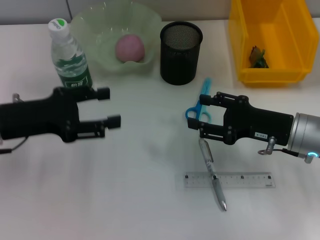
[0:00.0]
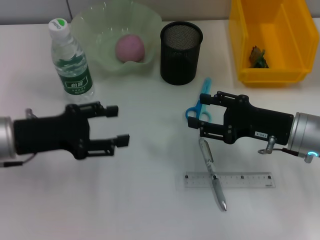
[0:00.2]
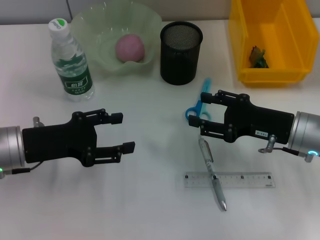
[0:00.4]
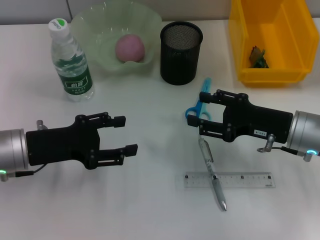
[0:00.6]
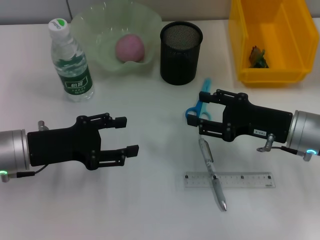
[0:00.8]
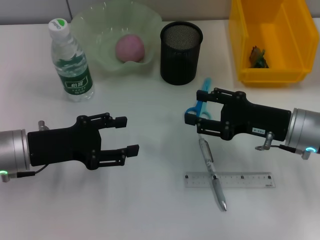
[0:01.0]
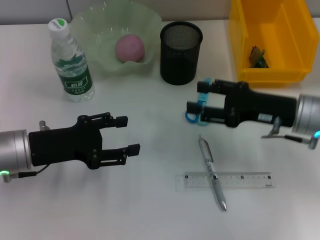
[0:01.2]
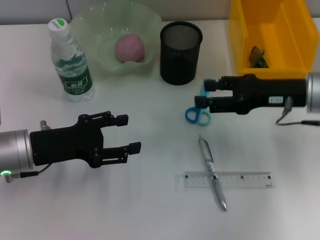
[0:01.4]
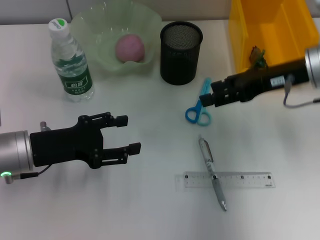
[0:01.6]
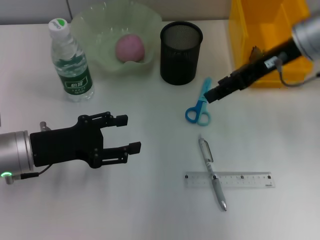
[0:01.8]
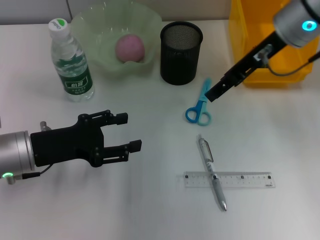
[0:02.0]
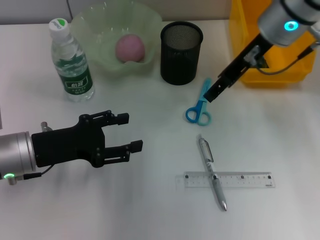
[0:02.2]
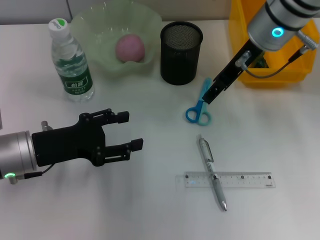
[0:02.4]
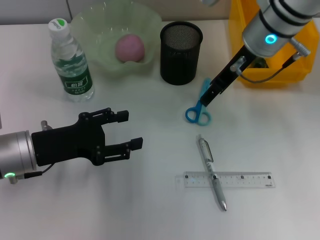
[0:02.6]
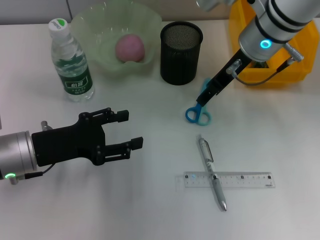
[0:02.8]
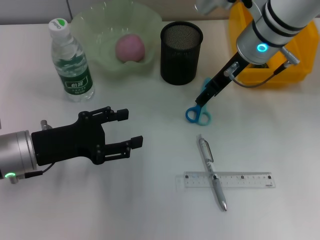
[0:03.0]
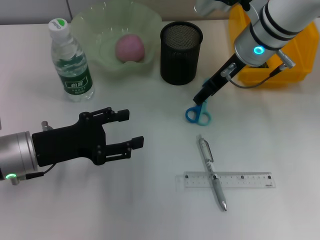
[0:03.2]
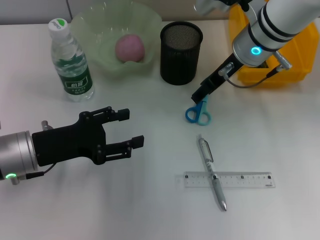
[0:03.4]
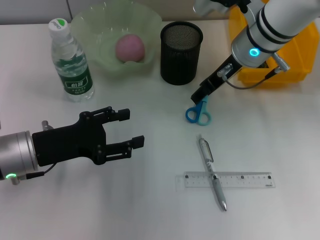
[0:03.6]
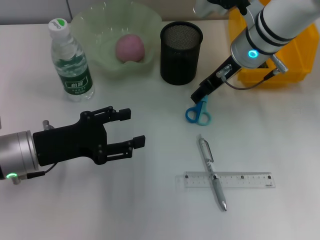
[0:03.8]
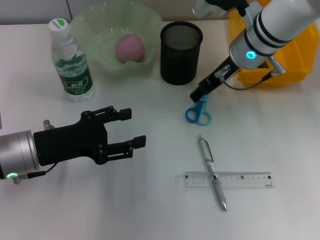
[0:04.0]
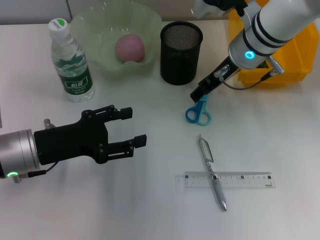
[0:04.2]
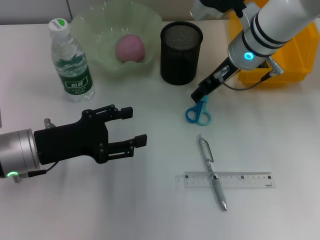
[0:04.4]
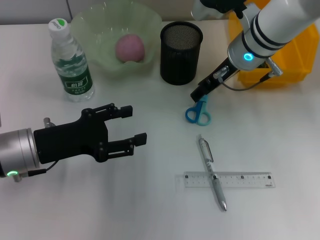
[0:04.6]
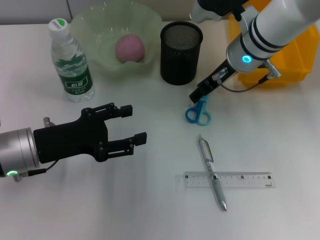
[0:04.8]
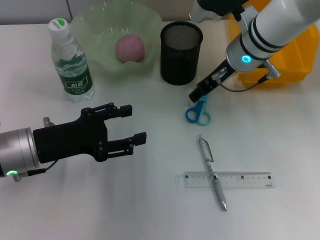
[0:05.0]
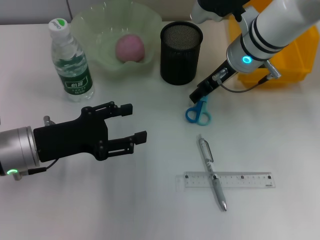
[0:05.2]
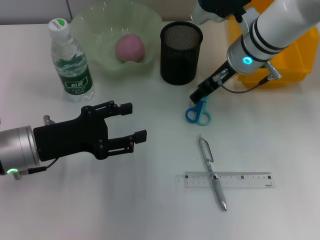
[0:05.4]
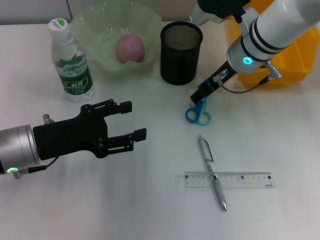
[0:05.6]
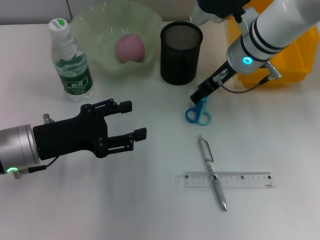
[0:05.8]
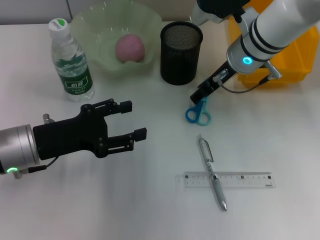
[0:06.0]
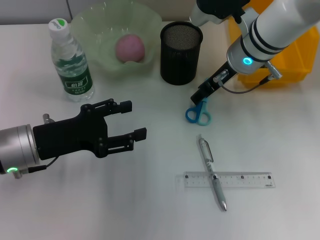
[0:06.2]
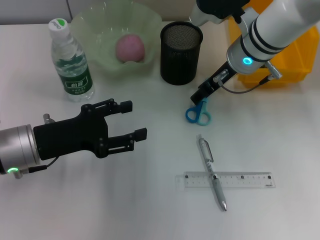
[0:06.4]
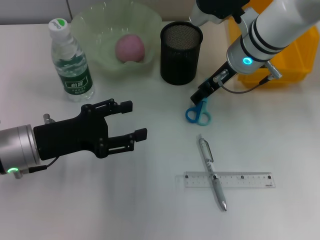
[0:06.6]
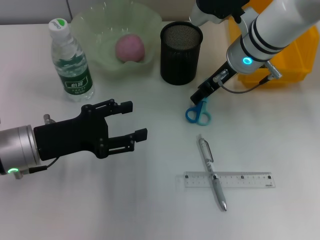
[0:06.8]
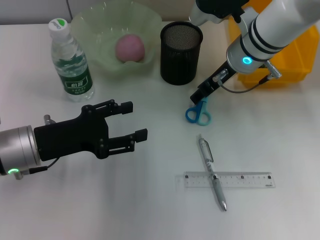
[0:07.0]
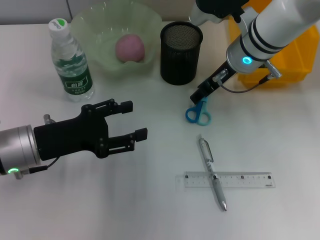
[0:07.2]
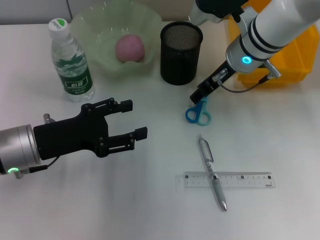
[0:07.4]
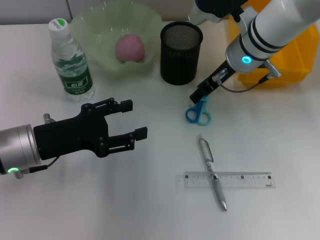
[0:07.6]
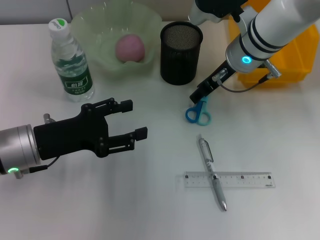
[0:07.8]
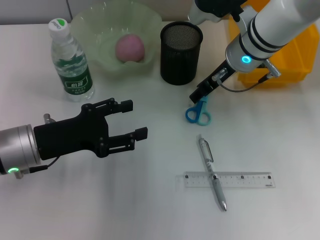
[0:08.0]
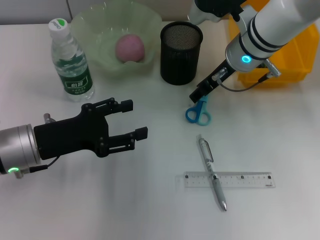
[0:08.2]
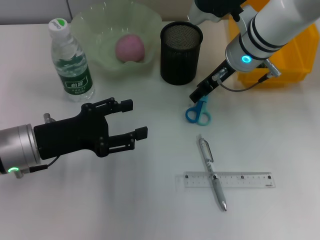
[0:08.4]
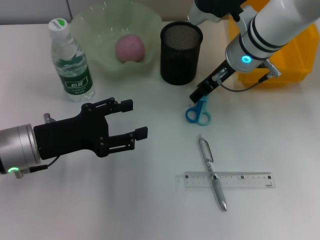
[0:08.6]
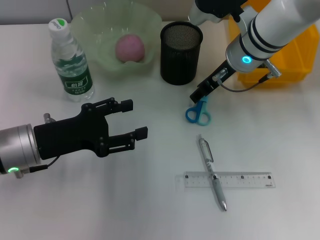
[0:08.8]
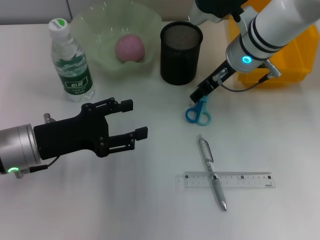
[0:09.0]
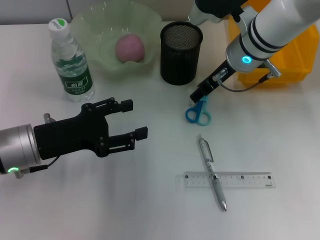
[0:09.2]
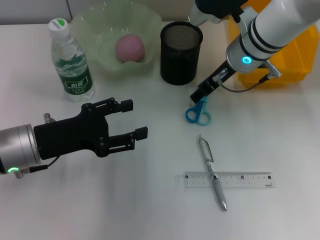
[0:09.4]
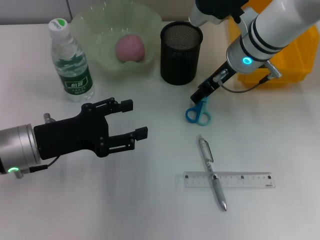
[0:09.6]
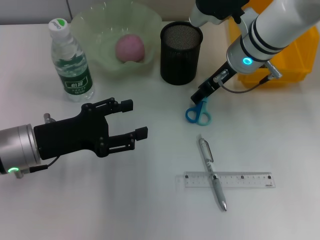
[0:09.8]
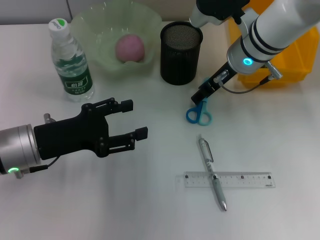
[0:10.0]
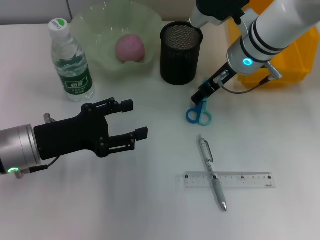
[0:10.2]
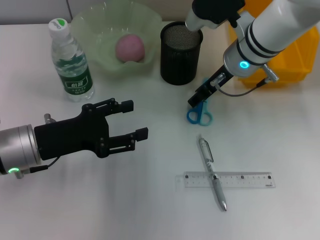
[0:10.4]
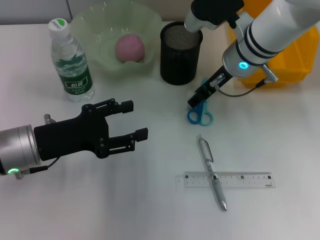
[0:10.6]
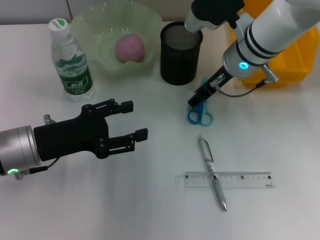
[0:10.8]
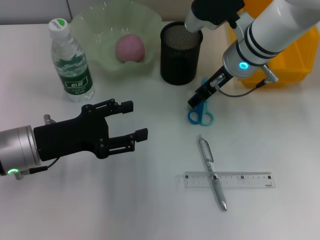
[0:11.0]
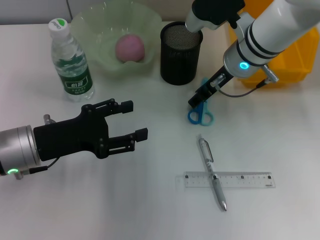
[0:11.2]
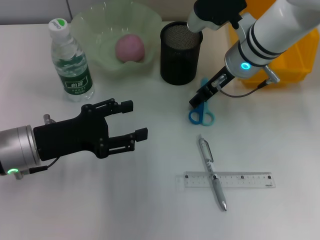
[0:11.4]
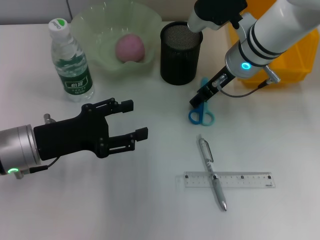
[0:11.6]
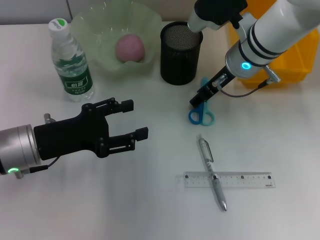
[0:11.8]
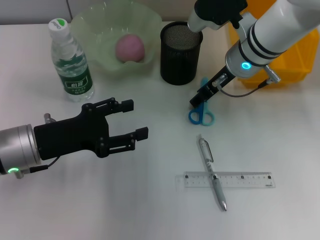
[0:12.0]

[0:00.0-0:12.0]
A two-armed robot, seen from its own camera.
0:00.0 to 0:01.6: The left gripper ends up some 5 cm from where it was. The right gripper shifts approximately 15 cm upward and forward.
0:01.6 to 0:03.0: The right gripper heads to the left and forward, covering approximately 10 cm.
0:03.0 to 0:04.4: The grippers stay close to where they were, moving slightly.
0:04.4 to 0:10.4: Neither gripper changes place.
0:10.4 to 0:12.0: Both grippers stay about where they are.

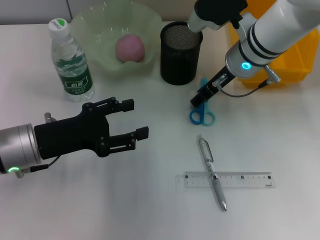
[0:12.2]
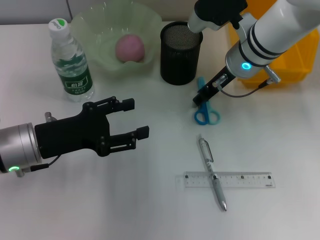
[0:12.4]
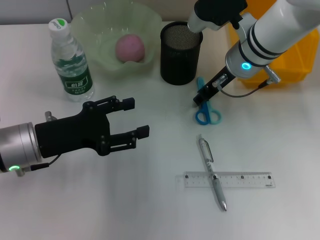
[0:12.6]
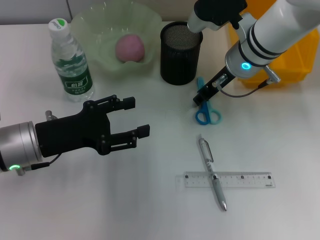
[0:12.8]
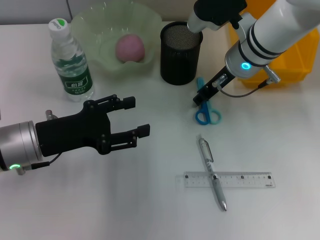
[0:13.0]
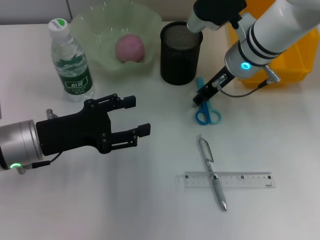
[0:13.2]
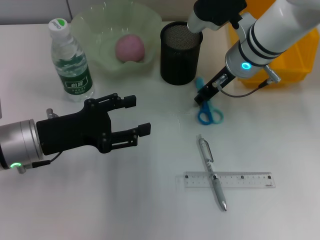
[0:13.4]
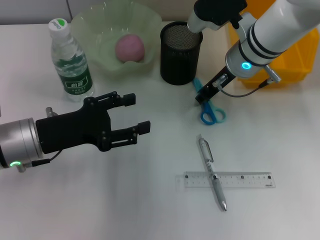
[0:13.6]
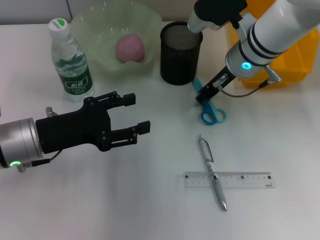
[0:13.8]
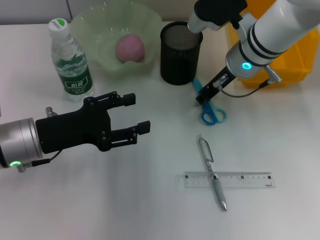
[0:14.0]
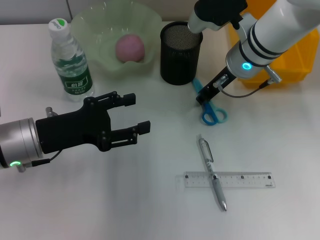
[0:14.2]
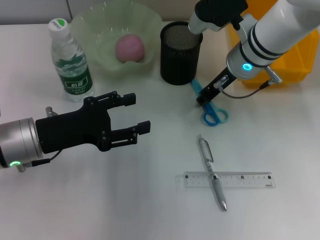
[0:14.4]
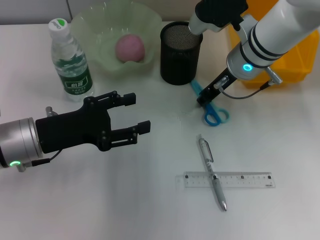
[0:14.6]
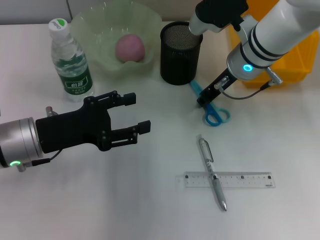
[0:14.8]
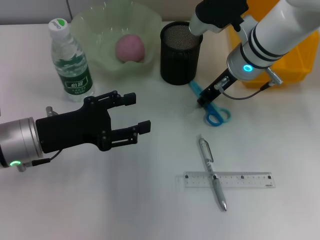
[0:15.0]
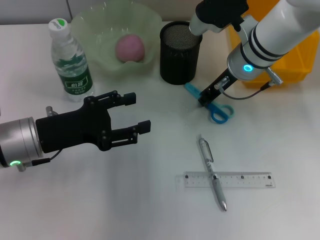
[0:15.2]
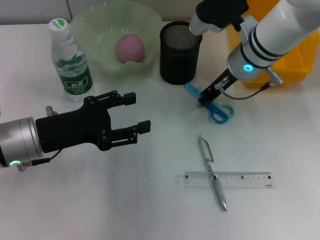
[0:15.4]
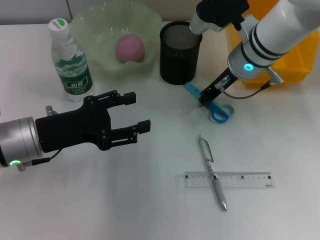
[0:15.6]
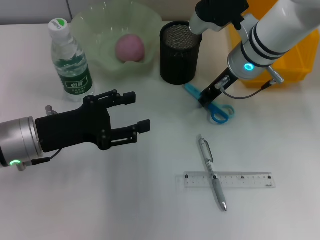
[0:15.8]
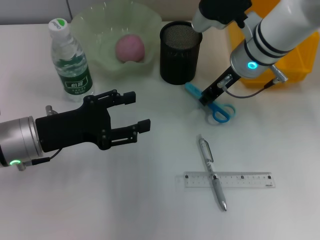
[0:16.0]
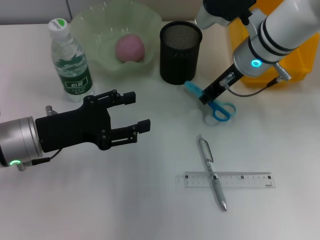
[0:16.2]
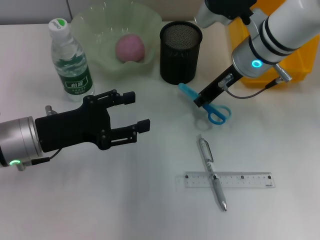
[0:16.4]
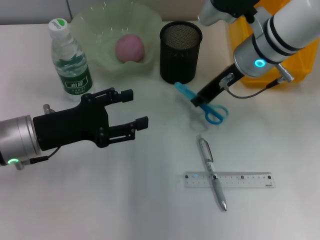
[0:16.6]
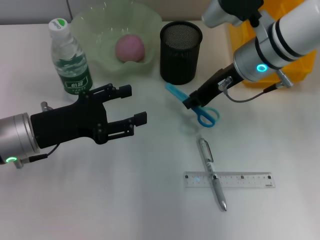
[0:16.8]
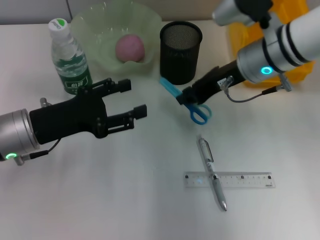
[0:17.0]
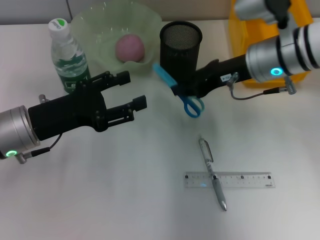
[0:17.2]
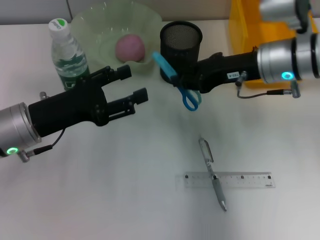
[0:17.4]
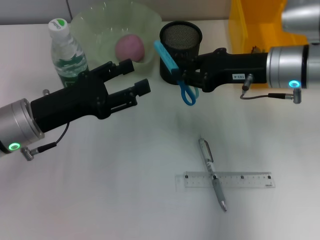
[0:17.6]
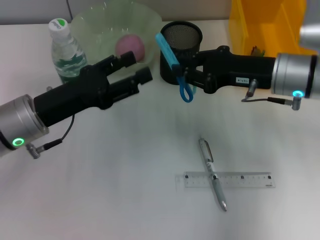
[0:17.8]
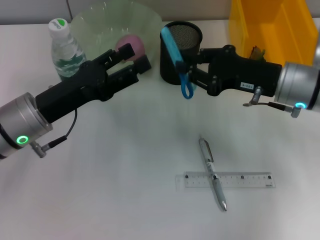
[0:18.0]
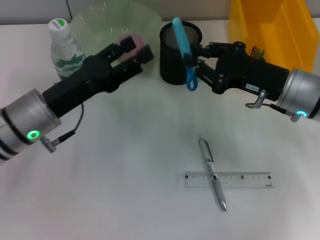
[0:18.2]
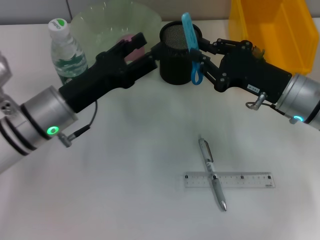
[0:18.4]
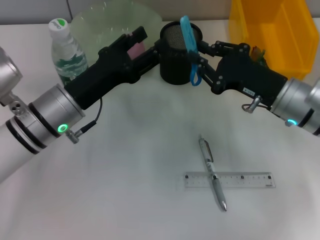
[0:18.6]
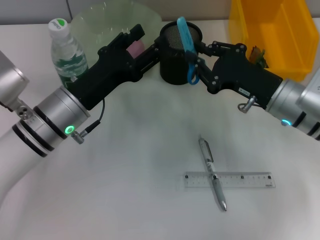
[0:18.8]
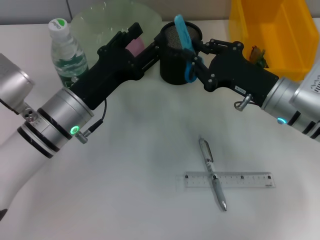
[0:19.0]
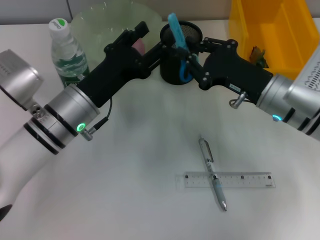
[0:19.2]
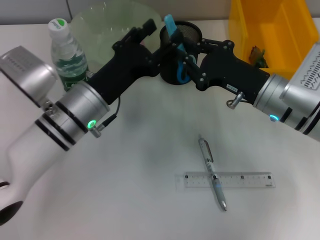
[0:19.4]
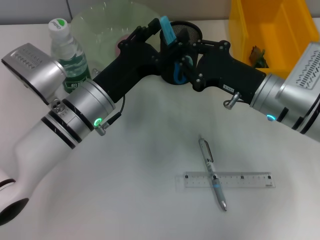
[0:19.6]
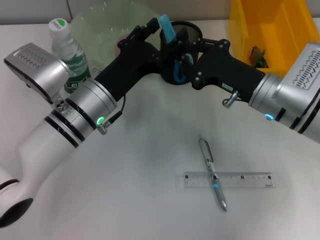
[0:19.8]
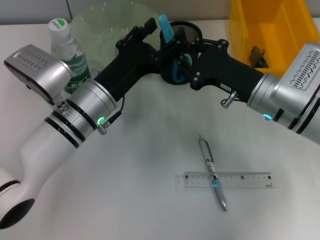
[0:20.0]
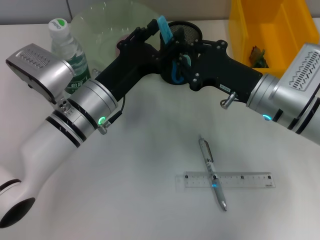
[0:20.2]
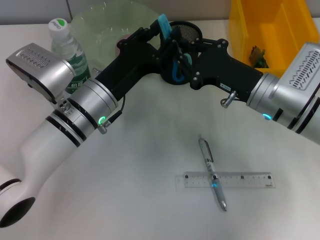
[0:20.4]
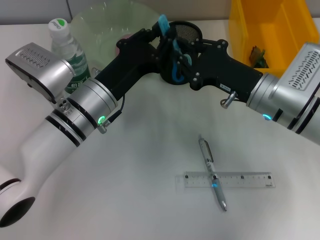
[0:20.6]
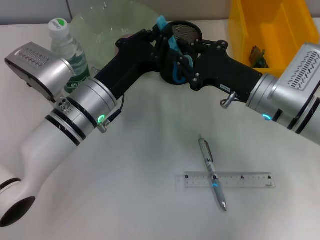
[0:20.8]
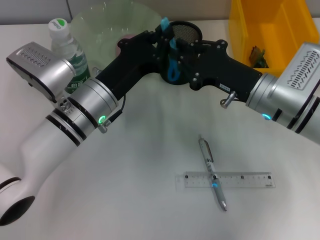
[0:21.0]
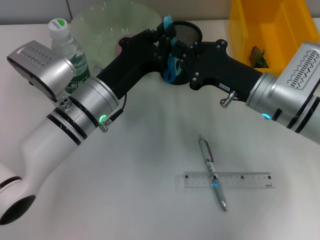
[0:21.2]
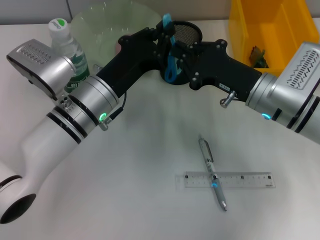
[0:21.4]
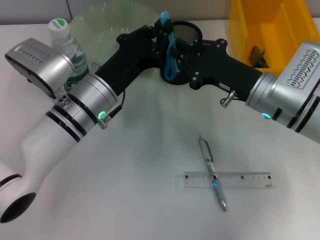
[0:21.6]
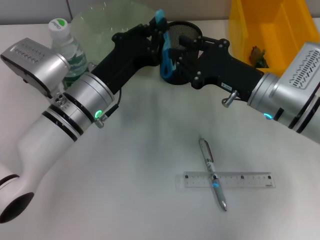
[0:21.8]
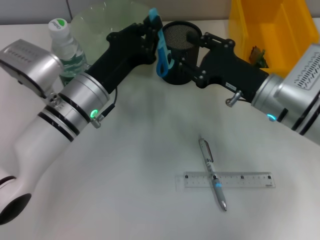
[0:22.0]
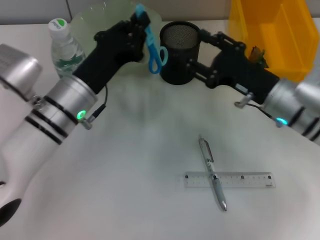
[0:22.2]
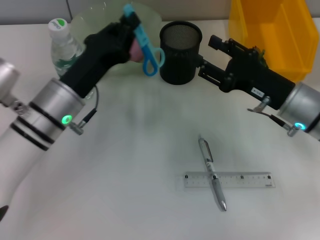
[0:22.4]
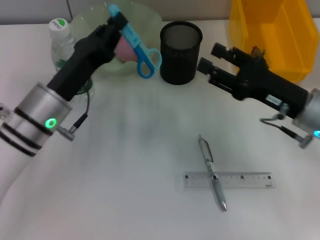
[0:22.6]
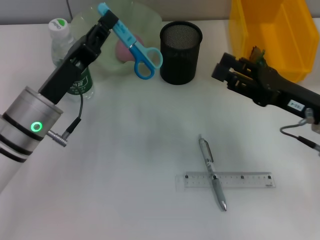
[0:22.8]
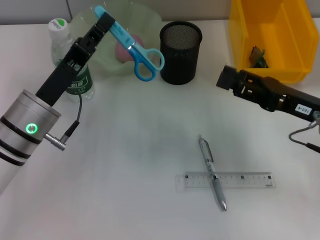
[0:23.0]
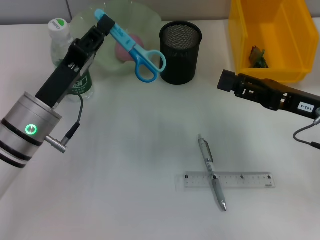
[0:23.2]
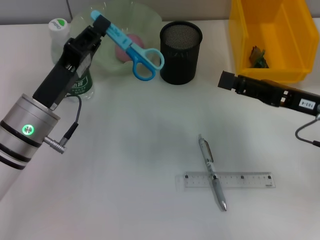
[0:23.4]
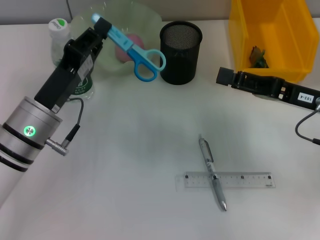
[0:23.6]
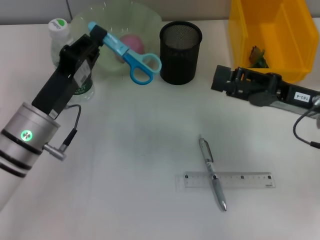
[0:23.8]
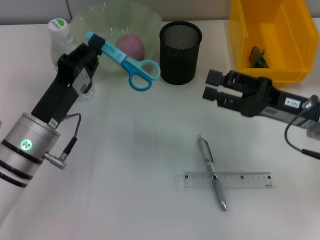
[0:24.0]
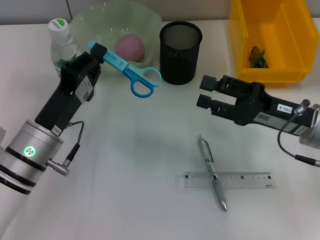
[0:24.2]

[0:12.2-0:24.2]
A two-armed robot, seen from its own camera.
Step, 0:12.2 to 0:15.4: Grab the blue scissors with the right hand.
Step, 0:15.6 to 0:21.6: Pass the blue scissors from the right hand to the left hand.
0:12.2 to 0:13.8: The right gripper closes up.
0:13.8 to 0:15.2: Both grippers stay about where they are.
0:15.2 to 0:16.6: There are only small adjustments of the grippers.
0:16.6 to 0:18.2: The right gripper shifts some 10 cm backward, to the right and downward.
0:18.2 to 0:19.8: The left gripper travels to the right by some 10 cm.
0:19.8 to 0:21.2: The left gripper closes its fingers.
0:21.2 to 0:22.6: The left gripper shifts approximately 5 cm to the left; the right gripper moves to the right, some 5 cm, and opens up.
0:22.6 to 0:24.2: The left gripper ends up approximately 5 cm from where it was.
